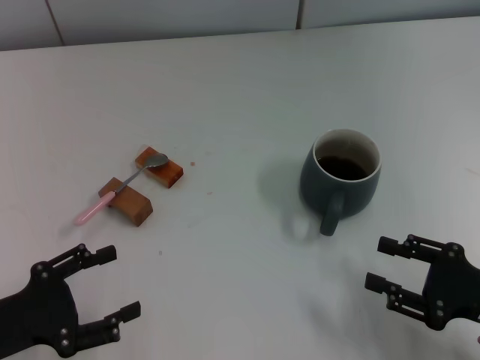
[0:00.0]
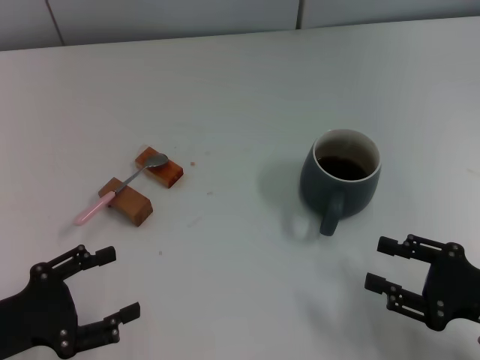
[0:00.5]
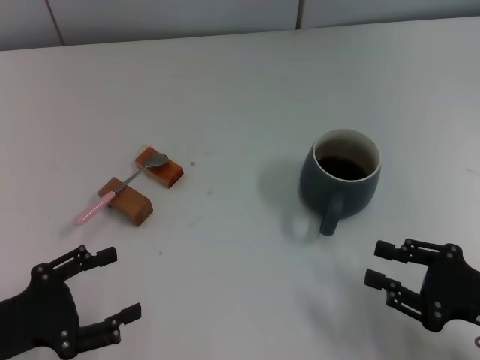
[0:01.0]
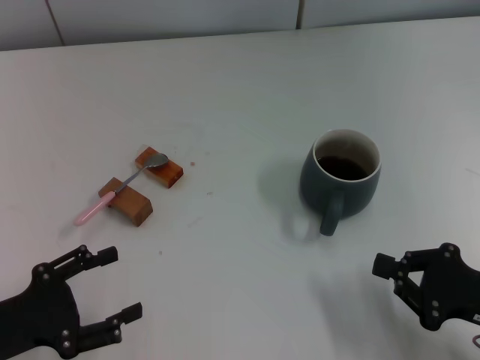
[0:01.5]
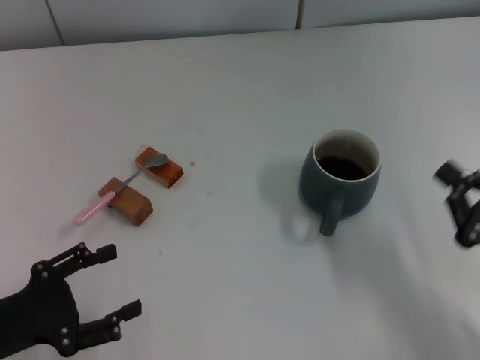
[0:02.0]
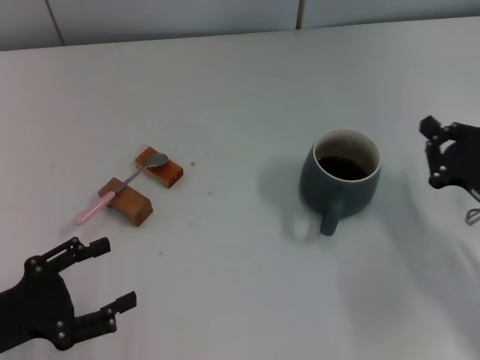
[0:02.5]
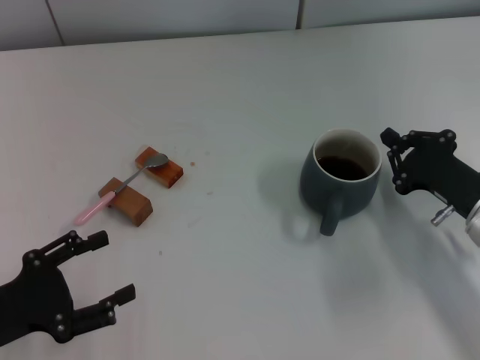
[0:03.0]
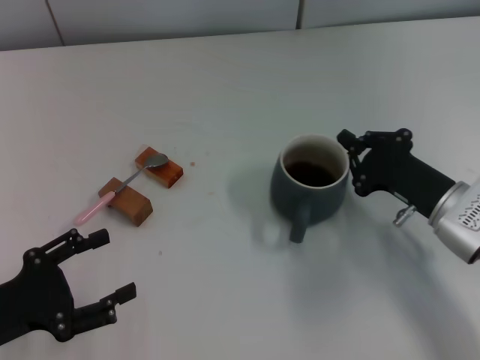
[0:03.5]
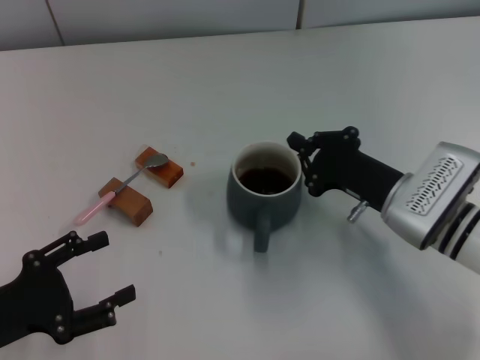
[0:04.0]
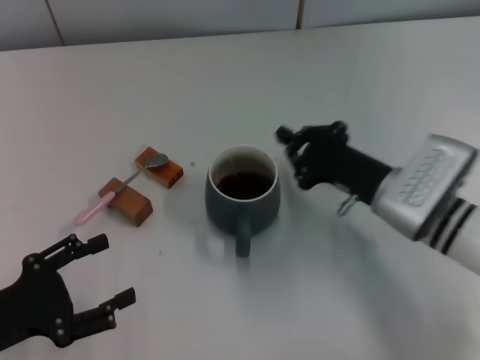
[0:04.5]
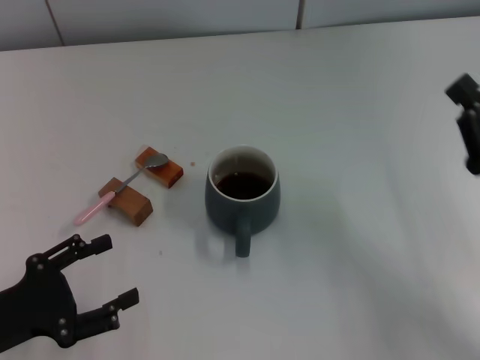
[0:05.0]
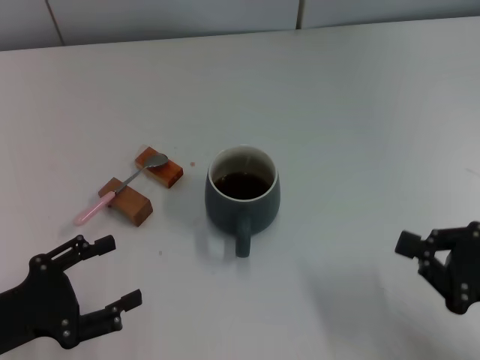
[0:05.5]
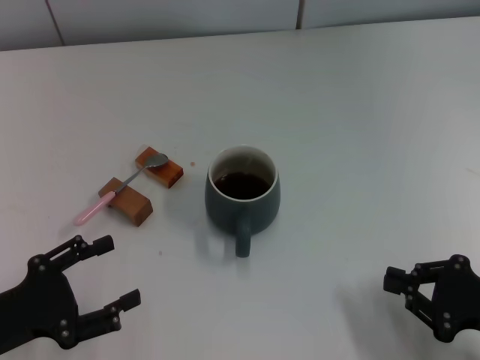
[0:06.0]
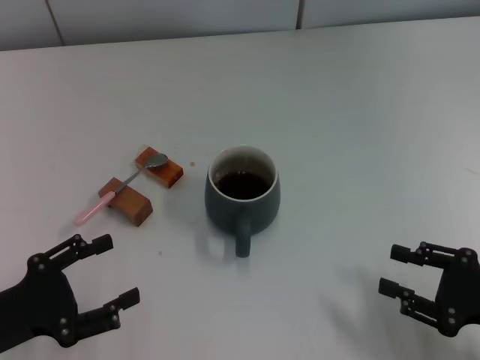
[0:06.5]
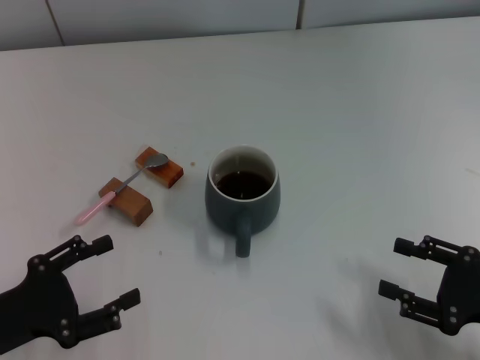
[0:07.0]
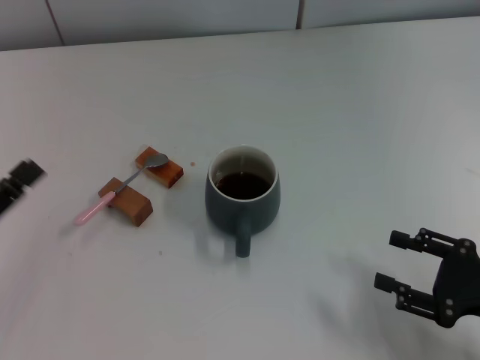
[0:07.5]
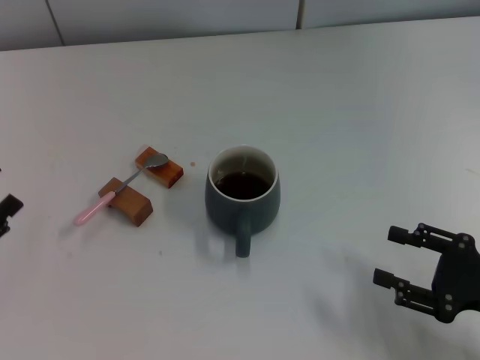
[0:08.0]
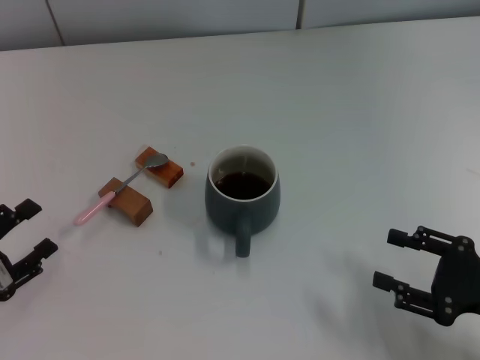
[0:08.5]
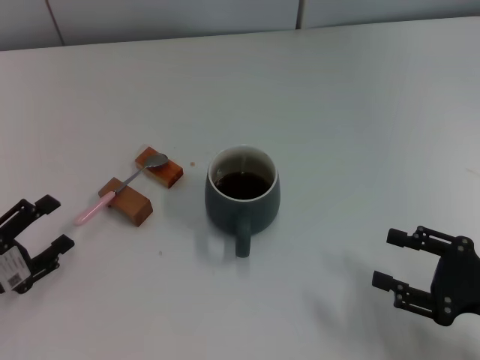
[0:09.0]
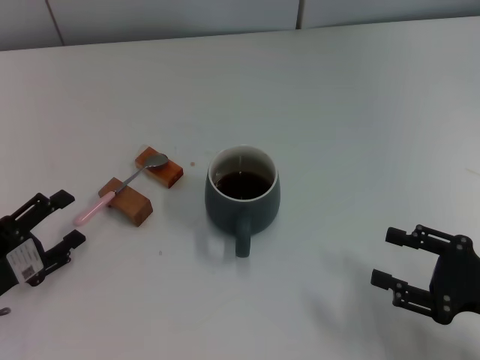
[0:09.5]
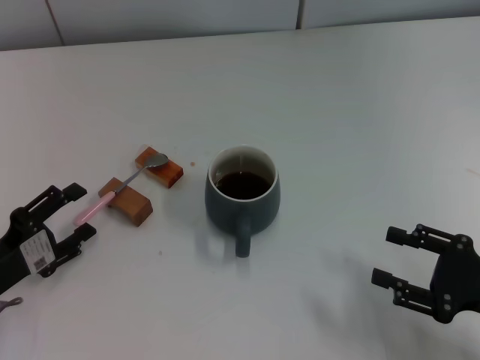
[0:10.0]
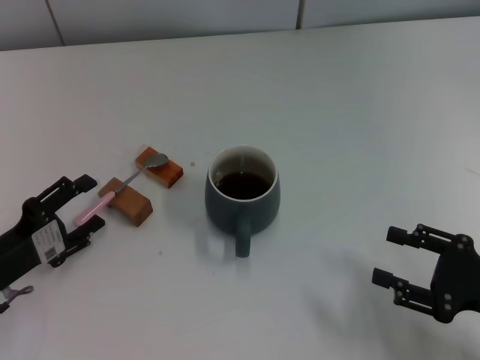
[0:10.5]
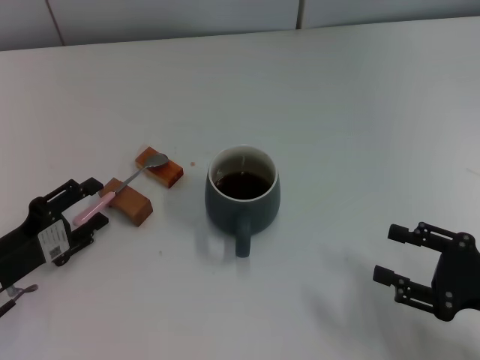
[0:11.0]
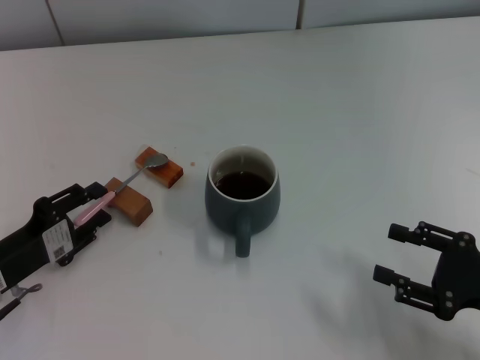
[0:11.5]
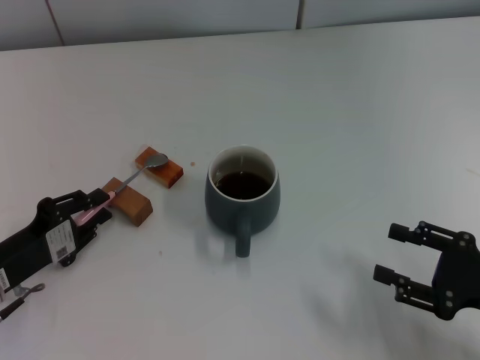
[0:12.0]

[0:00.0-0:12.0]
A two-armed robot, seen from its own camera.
Task of the whole recording: Move the grey cup to the center, lift the pink spoon, stir it three times in the cup, and put the spoon into the cup.
Step, 0:00.0 to 0:04.5: Move the cup with coffee to the center of view with the right gripper.
0:00.0 to 0:02.0: The right gripper closes its fingers.
0:02.0 to 0:04.0: The right gripper moves to the left and forward, roughly 15 cm.
0:04.0 to 0:06.0: The right gripper is displaced backward and to the right by roughly 15 cm.
0:06.0 to 0:08.0: The left gripper is displaced to the left by roughly 5 cm. Meanwhile the right gripper opens its fingers.
0:08.0 to 0:10.0: The left gripper ends up about 5 cm from where it was.
0:10.0 to 0:12.0: The left gripper closes.

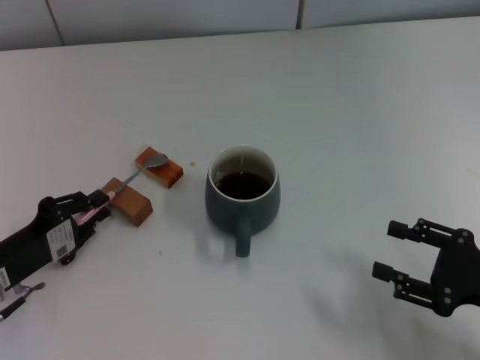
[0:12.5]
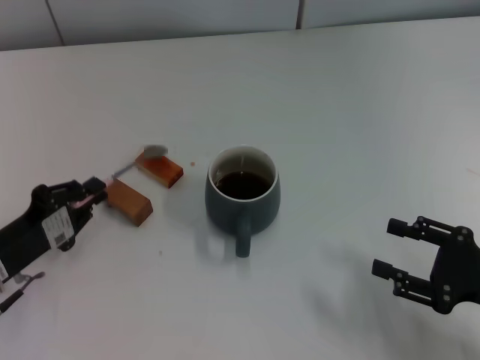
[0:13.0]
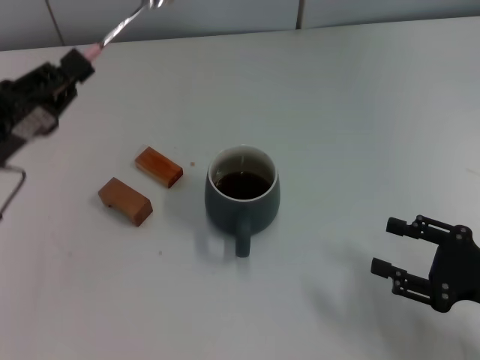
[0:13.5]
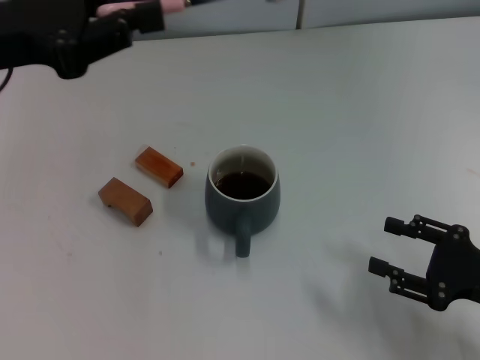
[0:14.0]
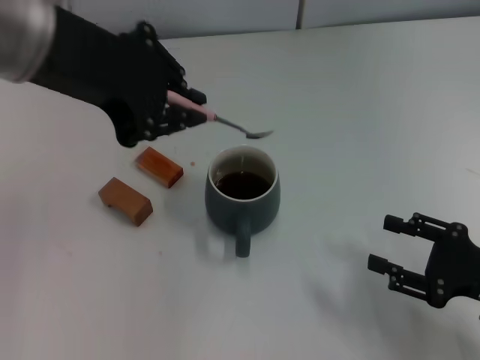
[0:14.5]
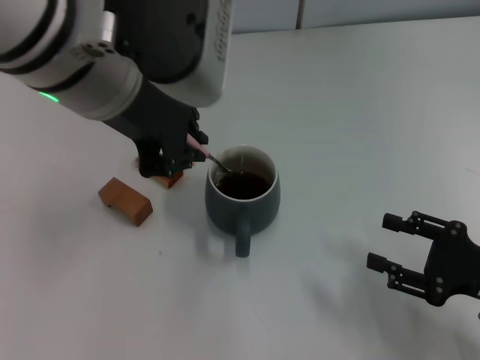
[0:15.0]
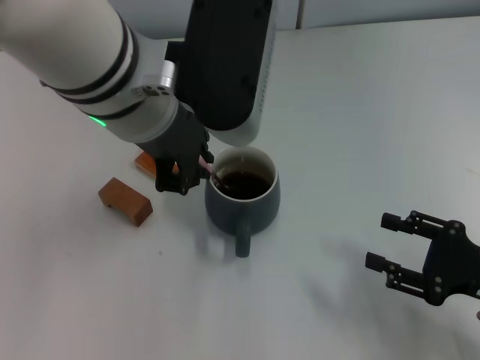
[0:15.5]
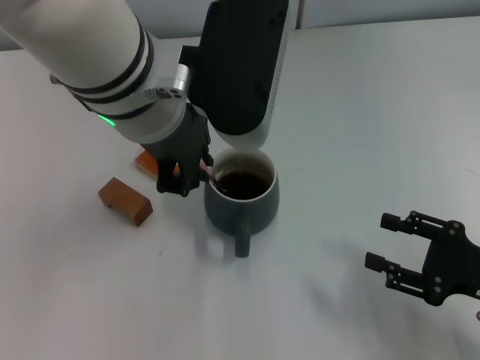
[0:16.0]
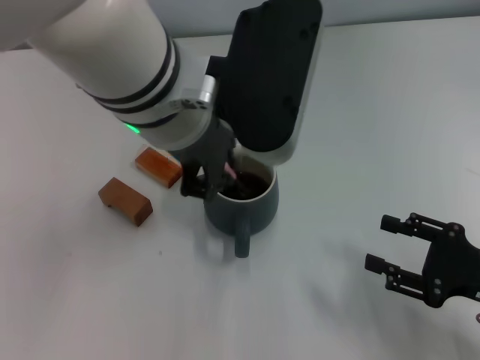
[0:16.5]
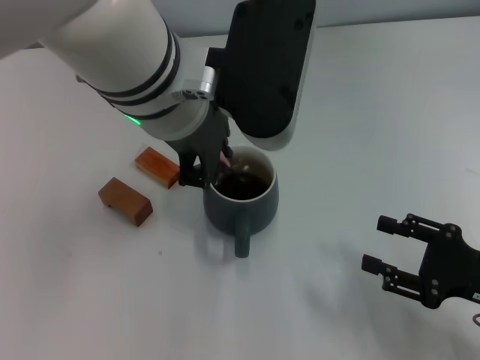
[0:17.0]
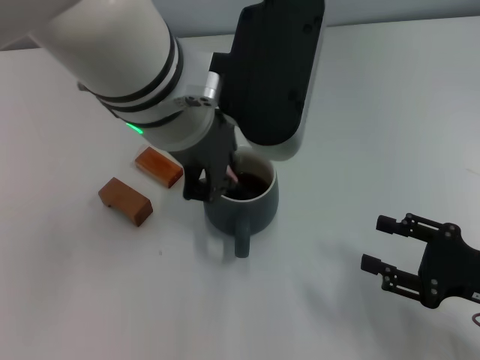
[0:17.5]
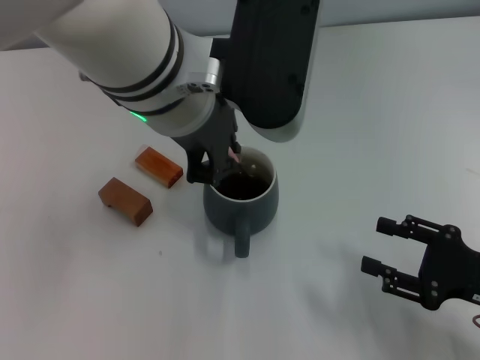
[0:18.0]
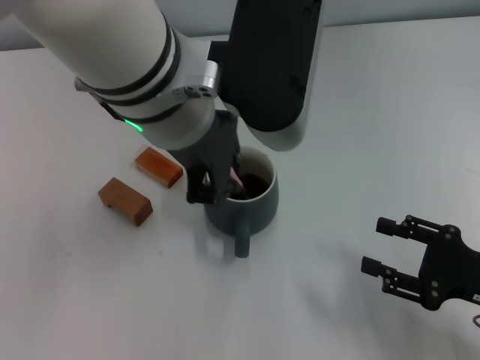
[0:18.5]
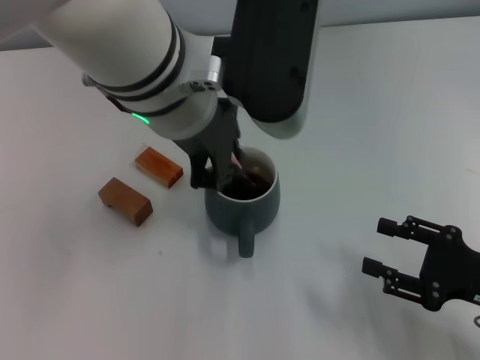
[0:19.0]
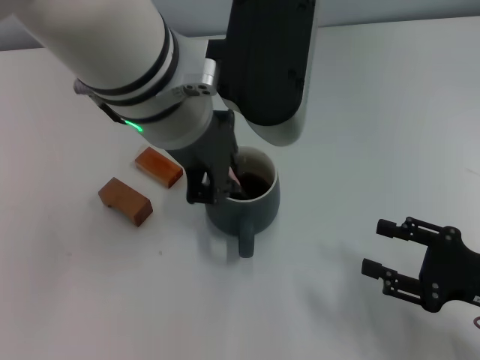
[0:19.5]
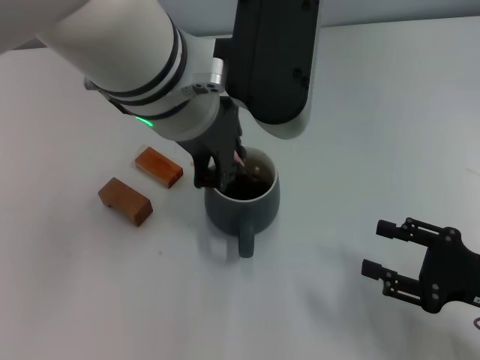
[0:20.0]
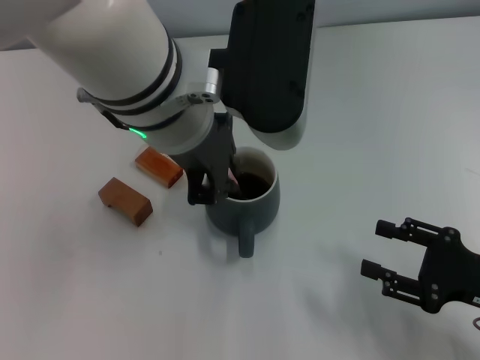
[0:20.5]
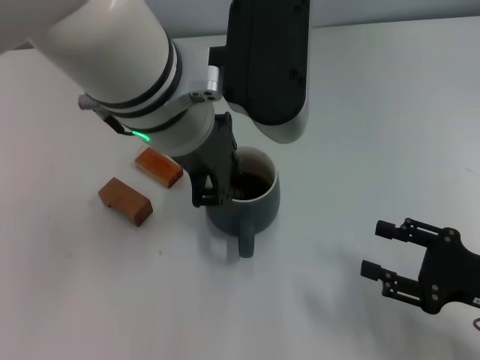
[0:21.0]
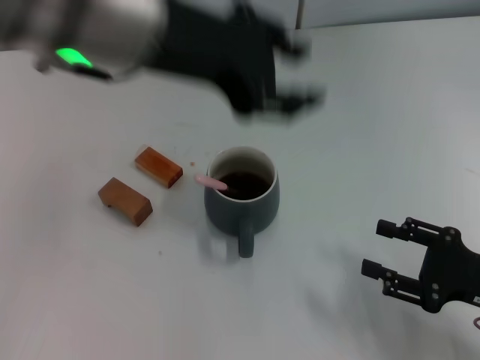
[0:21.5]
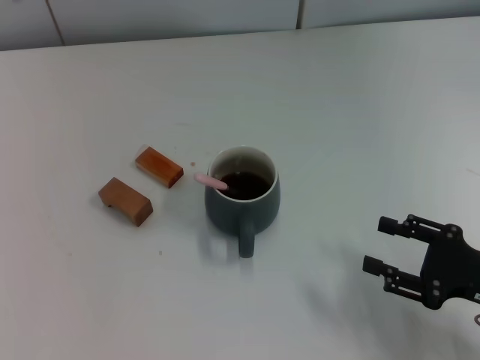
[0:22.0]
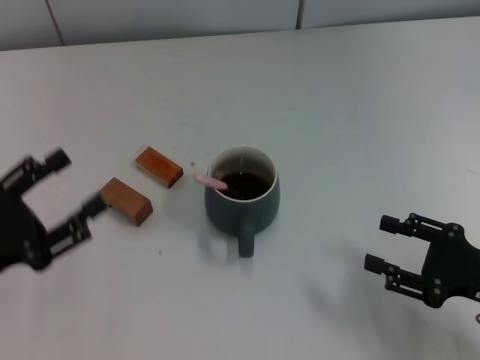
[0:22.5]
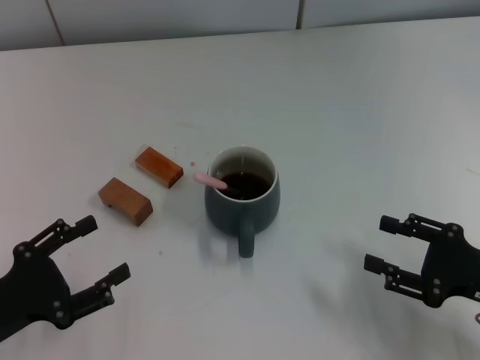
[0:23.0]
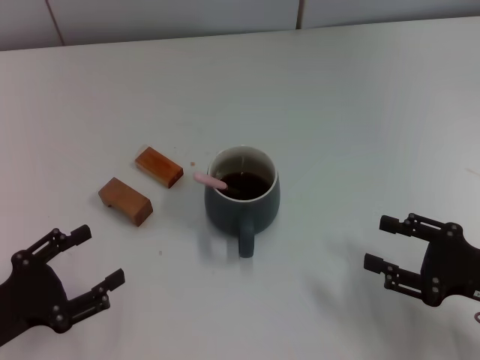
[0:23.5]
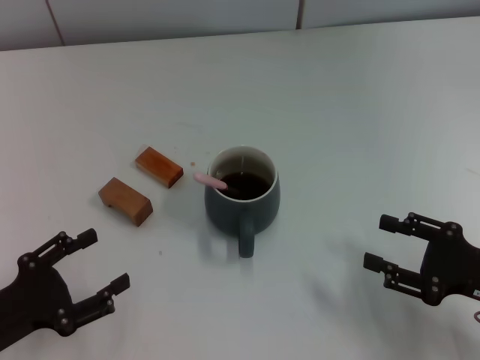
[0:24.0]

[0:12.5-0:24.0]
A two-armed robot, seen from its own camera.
Task of the whole recording: Move the grey cup to the center, lift the pink spoon, stir it three times in the cup, and put the spoon into the cup.
Step, 0:13.5 to 0:21.0: Stir the coffee in the cup with the left gripper.
0:12.5 to 0:14.5: The left gripper shifts some 30 cm upward and to the right.
0:14.5 to 0:16.5: The left gripper goes roughly 10 cm to the right and downward.
0:16.5 to 0:20.0: The grippers move only a little.
0:20.0 to 0:22.0: The left gripper travels to the left by roughly 20 cm, and opens up.
0:22.0 to 0:24.0: The left gripper heads downward and backward, covering approximately 25 cm, and opens its fingers.
